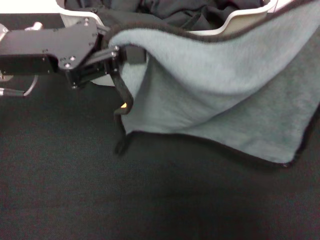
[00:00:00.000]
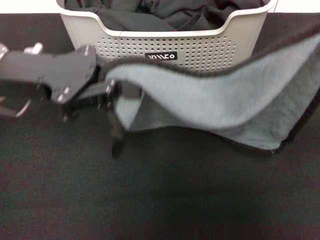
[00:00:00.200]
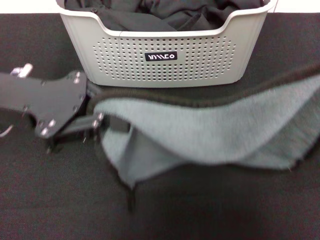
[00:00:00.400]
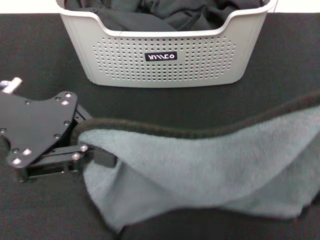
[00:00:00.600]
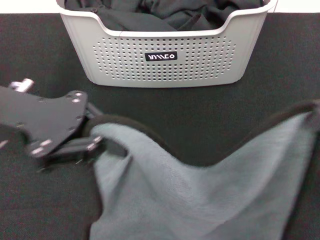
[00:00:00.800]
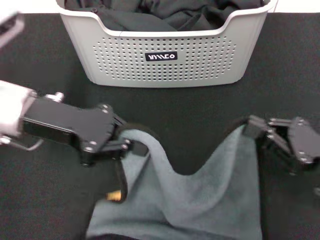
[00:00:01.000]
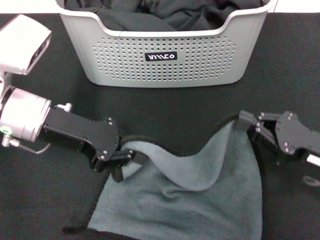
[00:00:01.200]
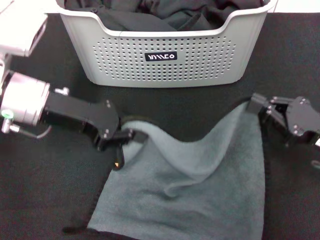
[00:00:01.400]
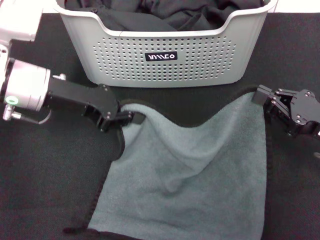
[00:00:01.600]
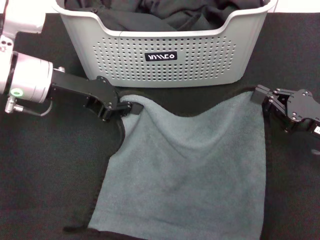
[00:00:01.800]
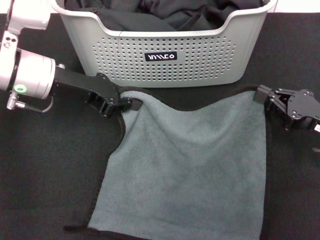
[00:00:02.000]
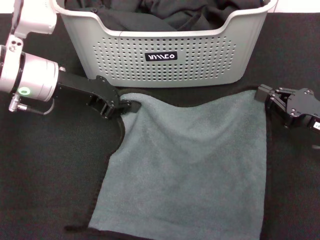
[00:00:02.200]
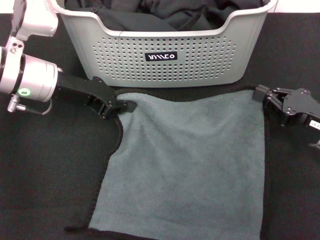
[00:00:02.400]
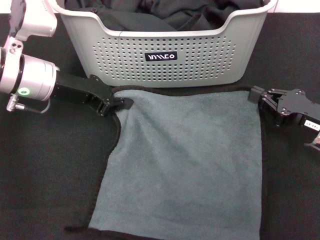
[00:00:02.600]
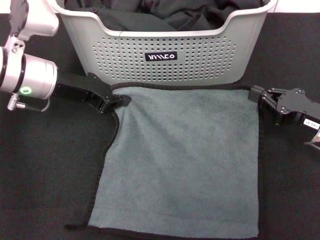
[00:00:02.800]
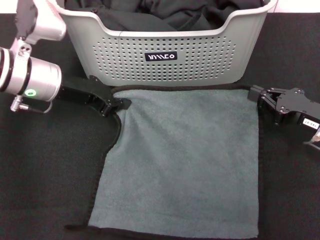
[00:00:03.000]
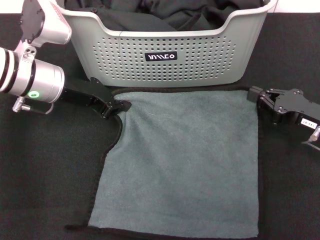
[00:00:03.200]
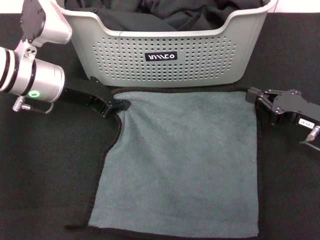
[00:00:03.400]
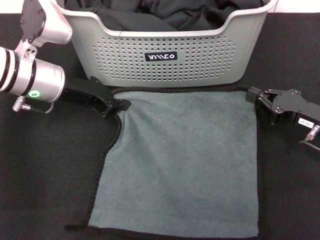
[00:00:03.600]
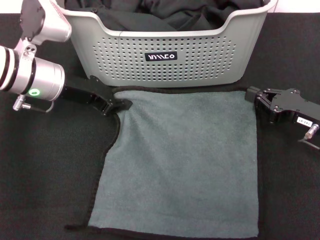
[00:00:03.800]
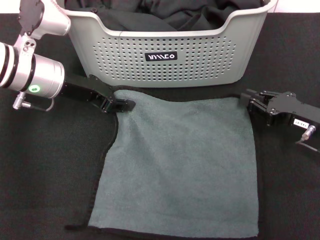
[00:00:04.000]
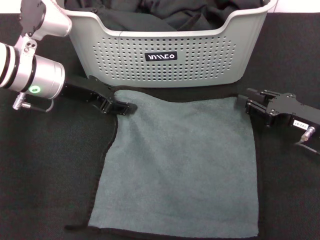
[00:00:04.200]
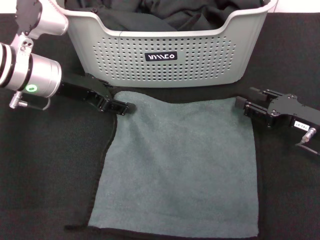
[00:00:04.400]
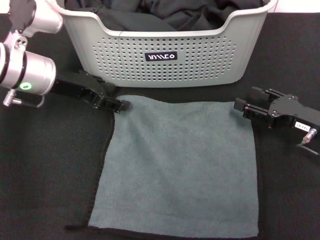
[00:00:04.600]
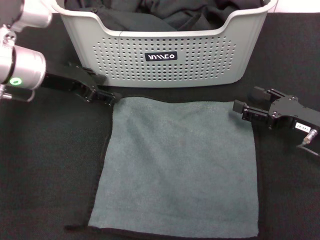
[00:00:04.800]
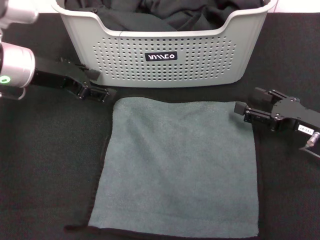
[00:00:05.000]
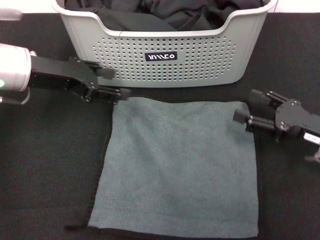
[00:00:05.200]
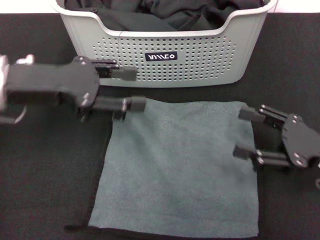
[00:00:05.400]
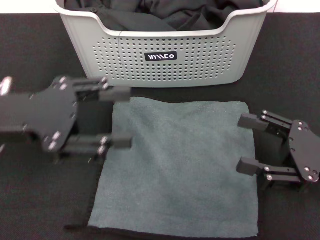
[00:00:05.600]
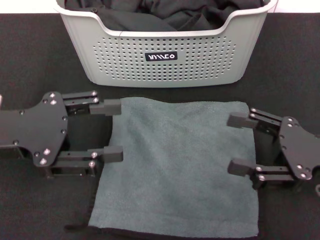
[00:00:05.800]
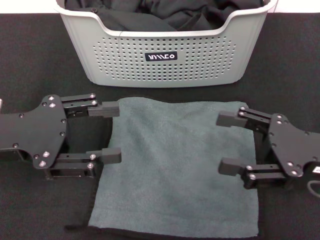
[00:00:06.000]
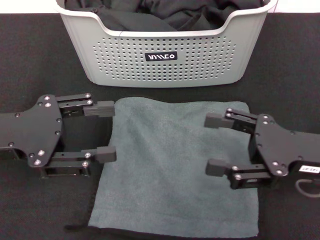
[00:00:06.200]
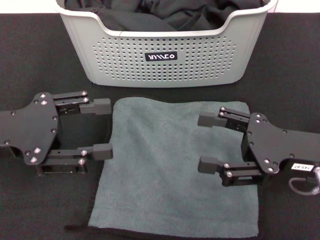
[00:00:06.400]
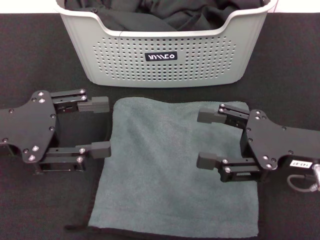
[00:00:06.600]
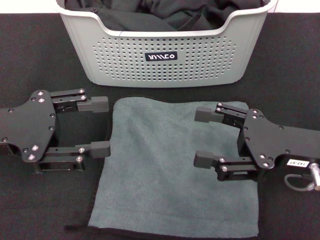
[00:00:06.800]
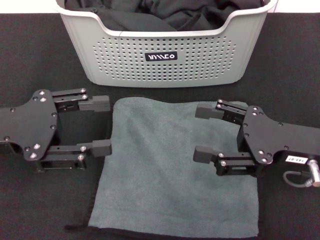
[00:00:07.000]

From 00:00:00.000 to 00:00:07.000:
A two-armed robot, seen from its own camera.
Task of the whole recording: pick up the towel from the storage box and lay it flat on the black tablecloth.
Step, from 00:00:00.000 to 00:00:04.600: Spread the towel flat with the right gripper.
From 00:00:00.000 to 00:00:01.400: The left gripper goes roughly 5 cm downward. The right gripper goes about 10 cm downward.
From 00:00:02.800 to 00:00:04.200: The left gripper opens its fingers.
From 00:00:04.200 to 00:00:05.600: The right gripper is displaced backward by some 10 cm, and opens. The left gripper shifts about 15 cm backward and upward, and opens.
From 00:00:05.600 to 00:00:07.000: The right gripper moves approximately 5 cm.
